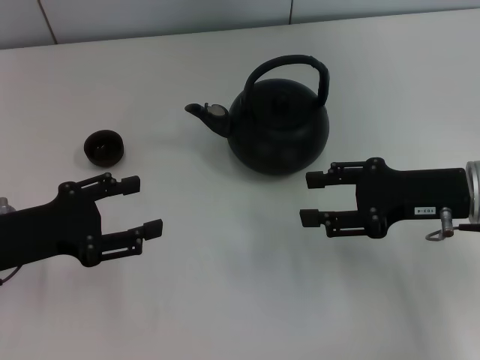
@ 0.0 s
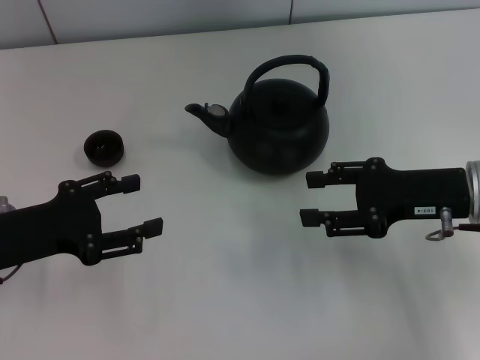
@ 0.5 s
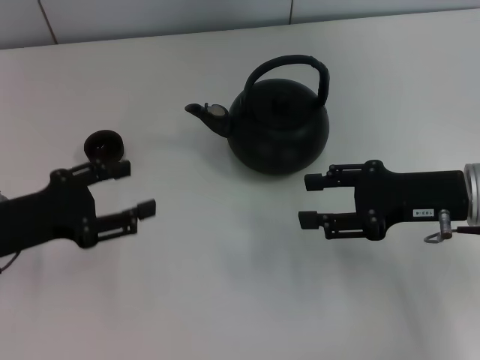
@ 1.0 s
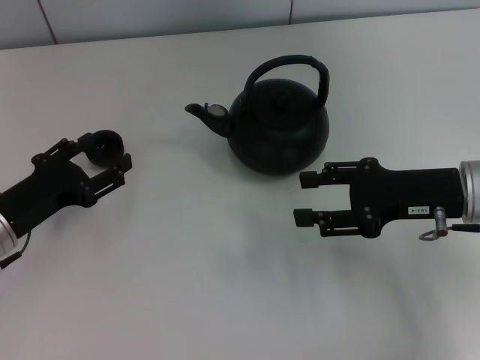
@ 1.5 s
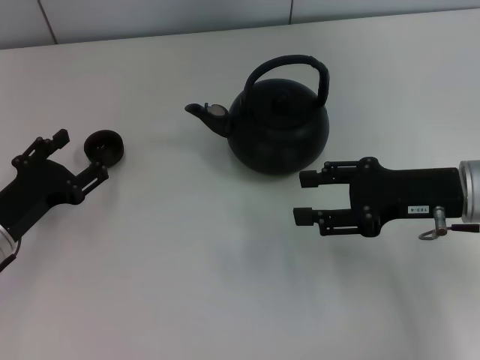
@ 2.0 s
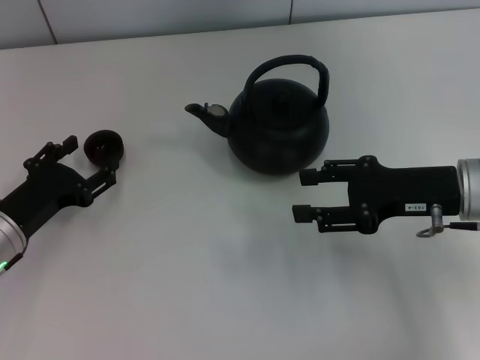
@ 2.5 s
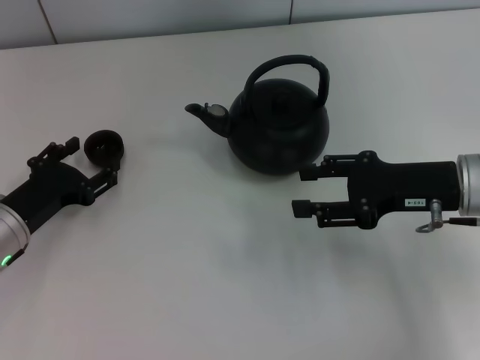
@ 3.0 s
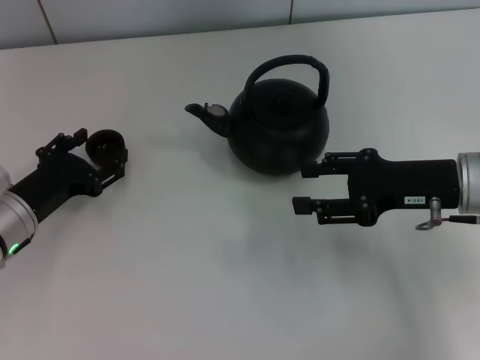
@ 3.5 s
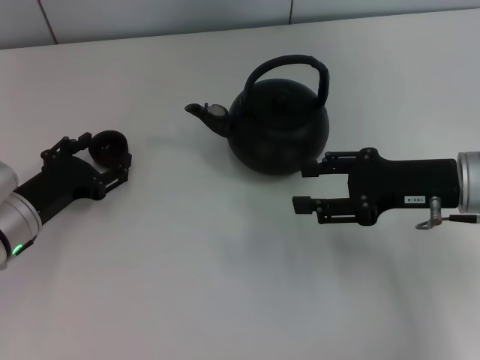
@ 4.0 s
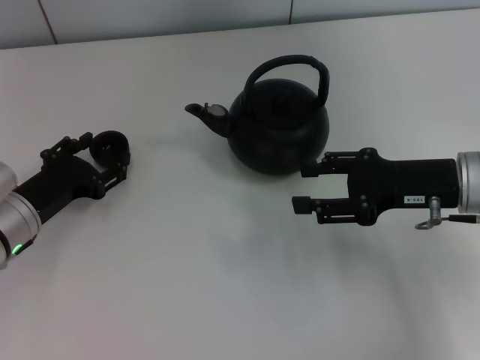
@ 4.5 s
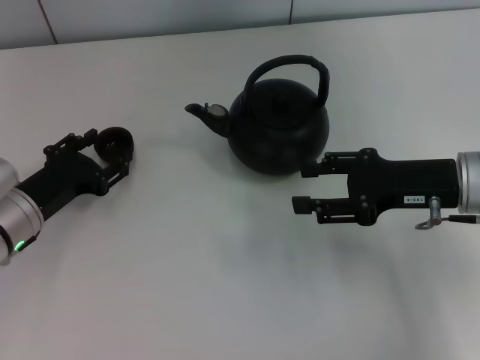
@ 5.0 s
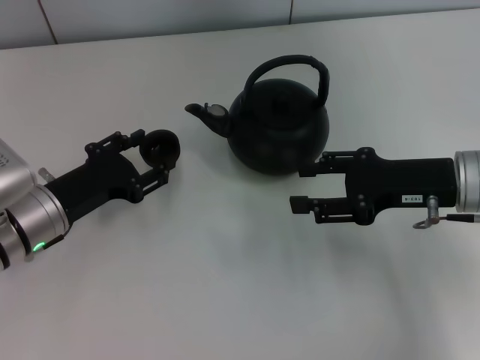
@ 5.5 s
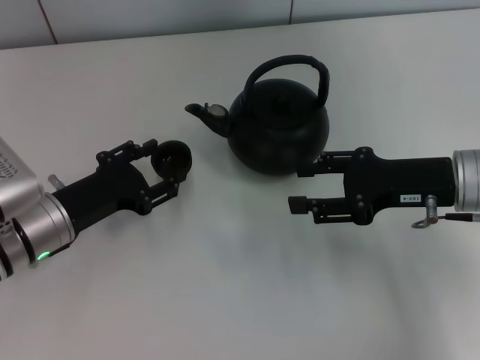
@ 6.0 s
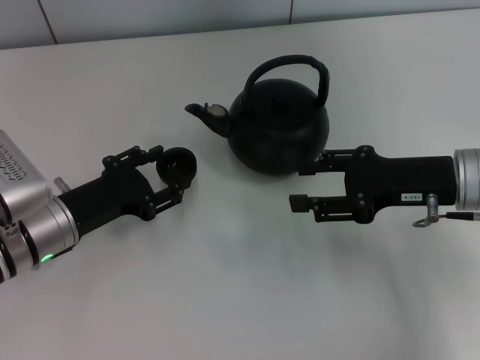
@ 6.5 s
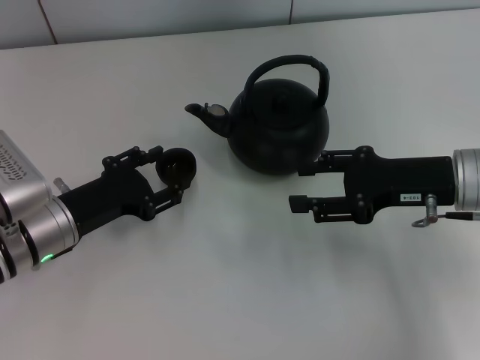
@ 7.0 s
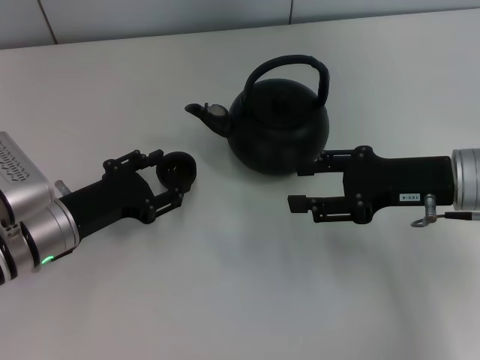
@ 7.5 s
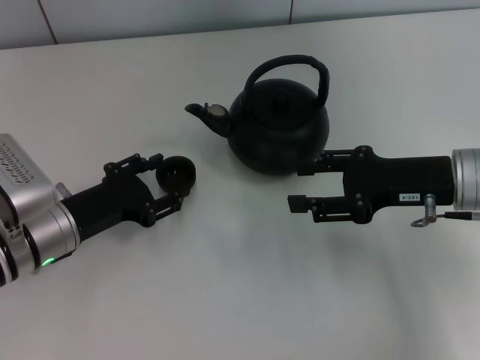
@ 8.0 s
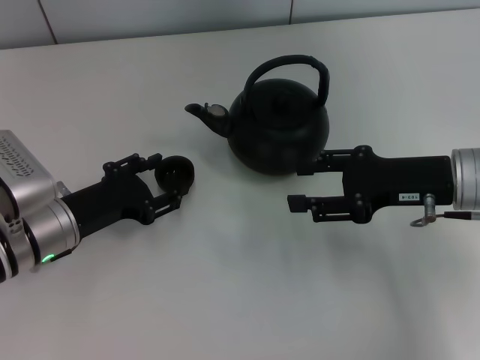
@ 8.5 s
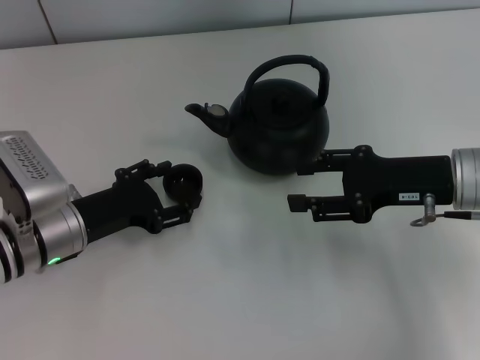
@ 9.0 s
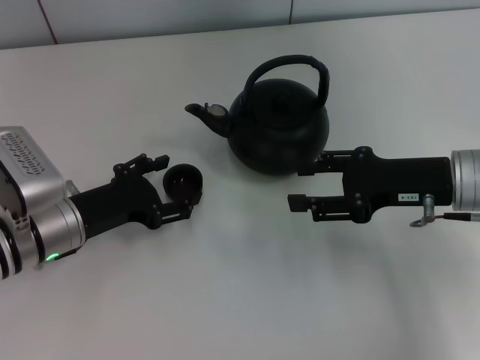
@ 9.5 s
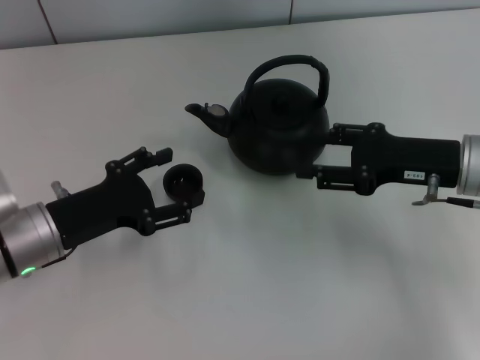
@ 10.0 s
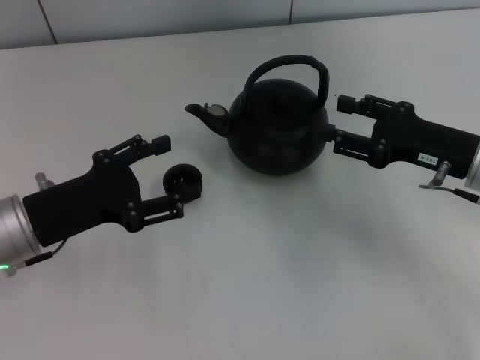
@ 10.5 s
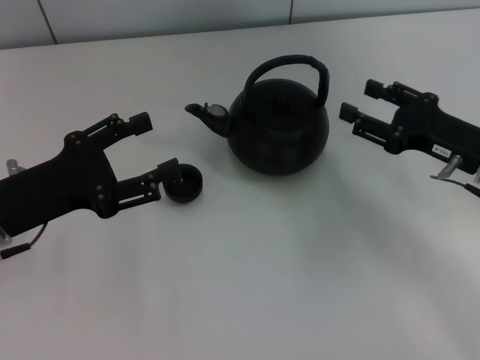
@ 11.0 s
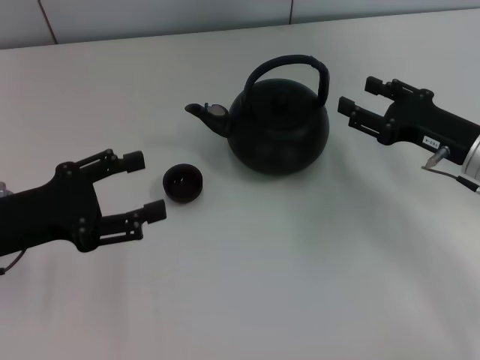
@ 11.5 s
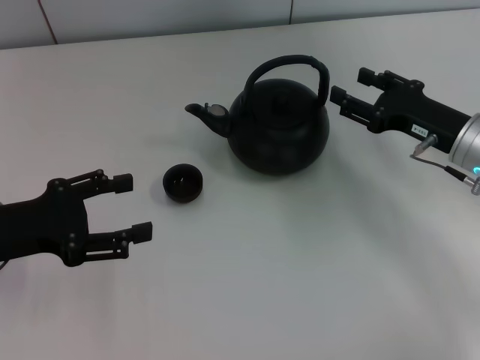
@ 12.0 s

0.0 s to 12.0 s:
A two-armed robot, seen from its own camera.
Task of the whole recording: Grasp the handle of the teapot with one hand and pour tea into the teacup.
Step, 0.0 to 5.5 s: Pick up the teacup with the left gripper.
Step, 6.0 to 10.0 s: Place the teacup in the center of view with the left gripper.
0.0 to 2.0 s: The left gripper heads downward, covering about 5 cm.
2.0 to 6.0 s: The grippers stay close to where they were, moving slightly.
6.0 to 8.0 s: Both grippers stay put.
8.0 to 10.0 s: The left gripper opens its fingers.
10.0 to 12.0 s: The left gripper heads to the left, covering roughly 5 cm.

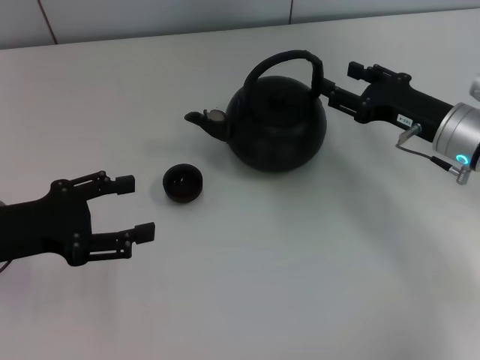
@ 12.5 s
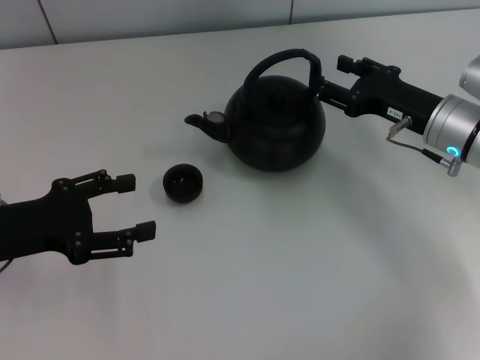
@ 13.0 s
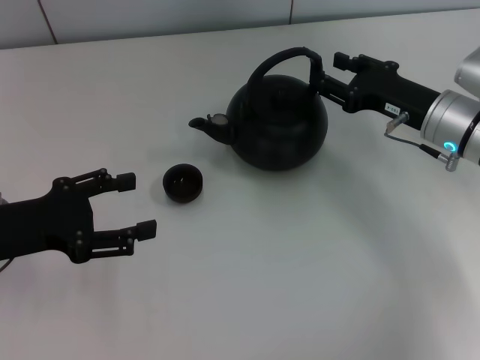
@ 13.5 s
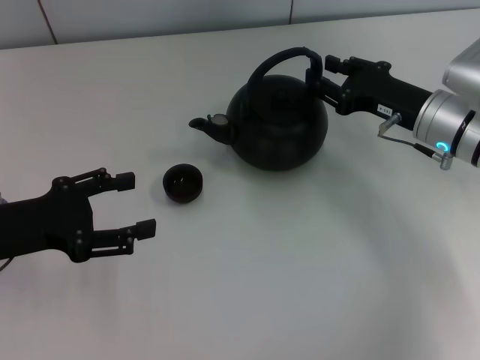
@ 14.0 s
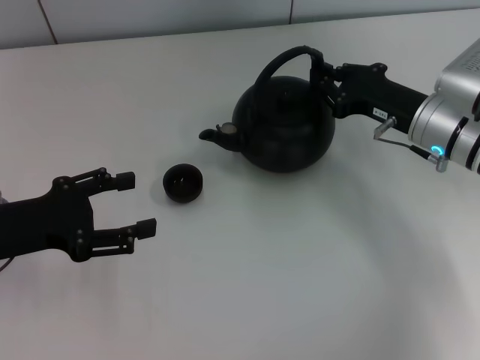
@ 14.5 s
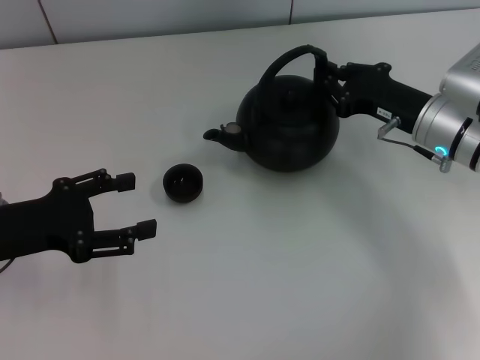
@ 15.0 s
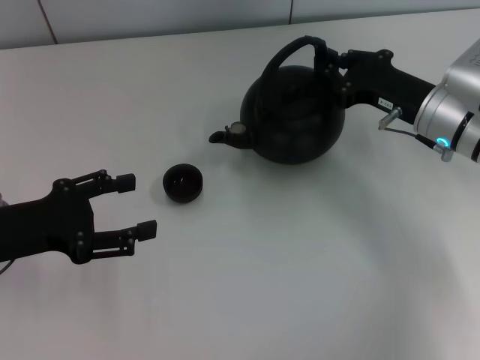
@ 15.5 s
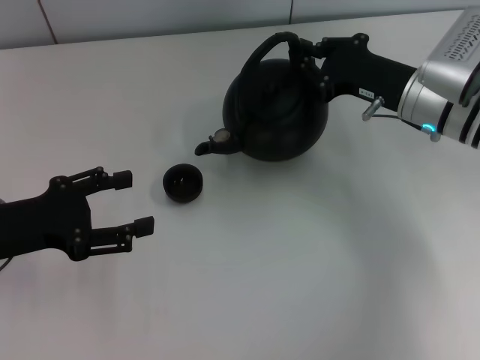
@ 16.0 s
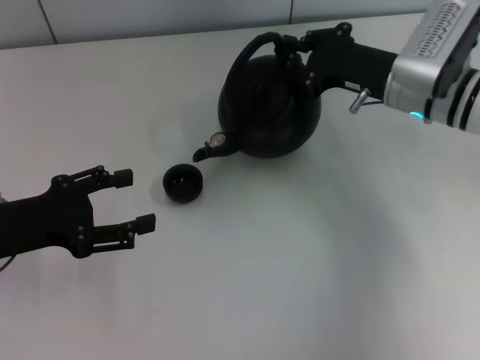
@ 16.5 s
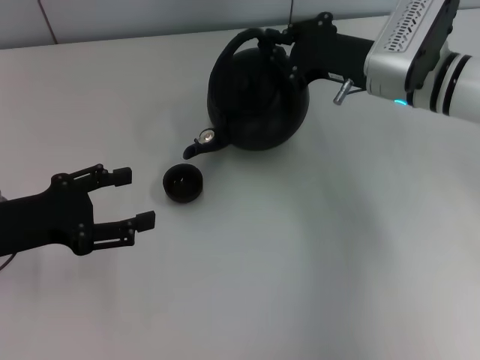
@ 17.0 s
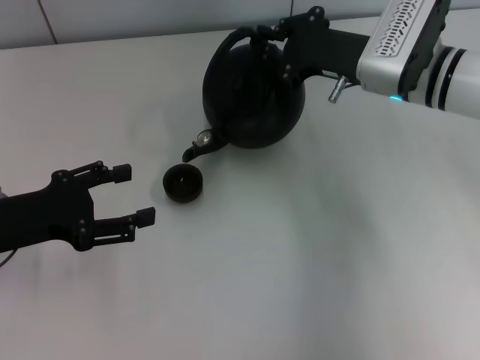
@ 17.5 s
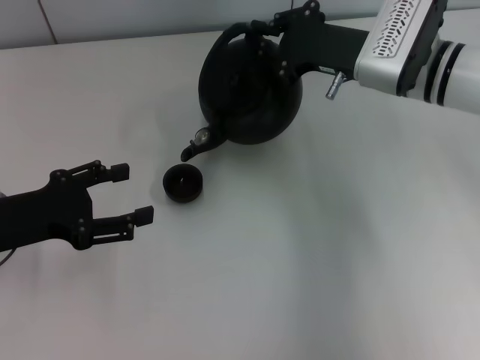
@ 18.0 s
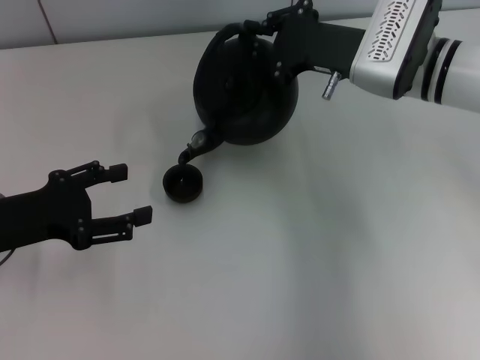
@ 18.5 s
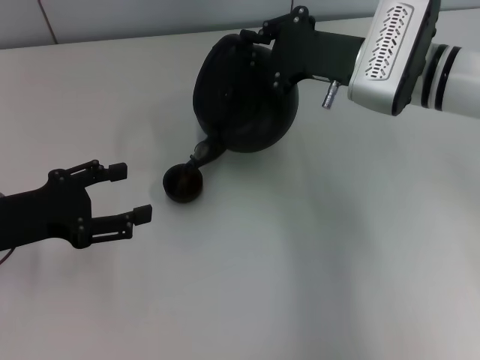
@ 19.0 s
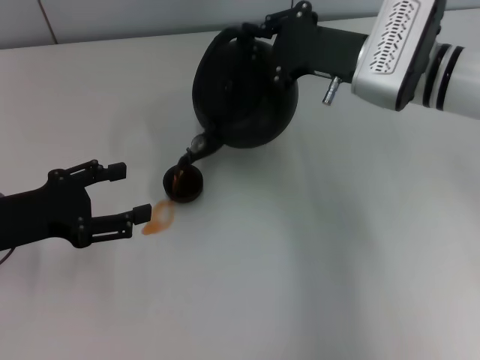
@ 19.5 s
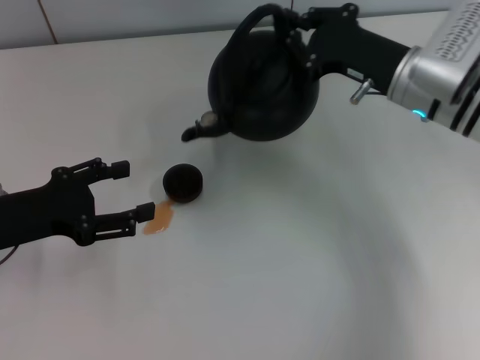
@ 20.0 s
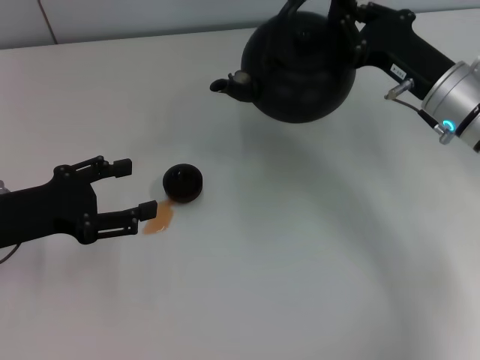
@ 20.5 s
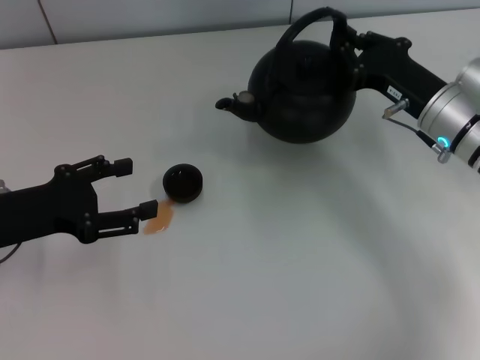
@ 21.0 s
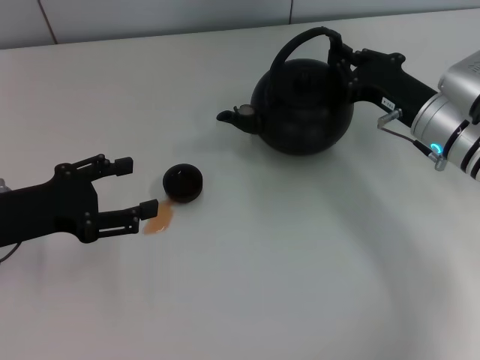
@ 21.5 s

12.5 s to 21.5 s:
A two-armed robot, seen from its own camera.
Task of the whole recording: Grasp the handle of the teapot with one hand and pour tea into the teacup.
Step, 12.5 to 16.0 s: Pick up the teapot with the right gripper.
12.5 to 14.5 s: The right gripper closes up.
14.5 to 17.0 s: The right gripper heads upward, covering some 5 cm.
17.0 to 19.5 s: The grippers stay close to where they were, moving slightly.
19.5 to 21.5 s: The right gripper moves downward and to the right, some 10 cm.

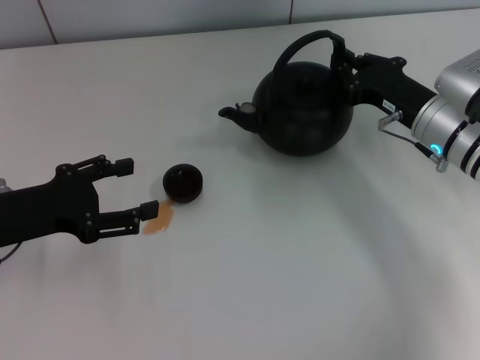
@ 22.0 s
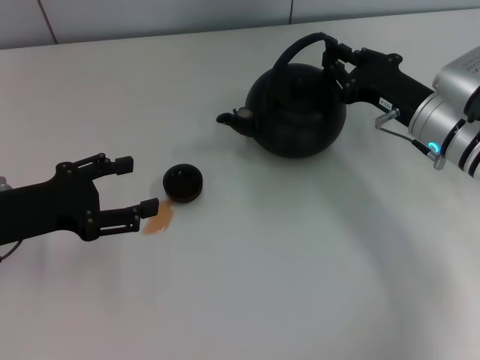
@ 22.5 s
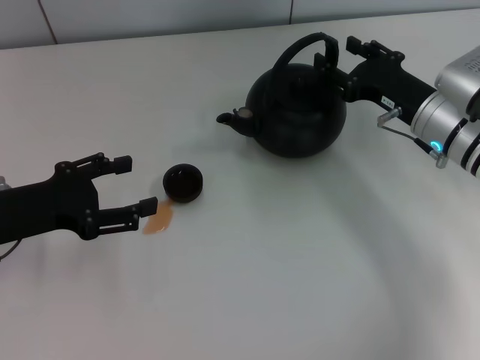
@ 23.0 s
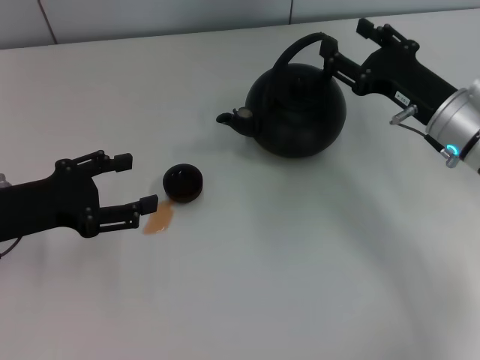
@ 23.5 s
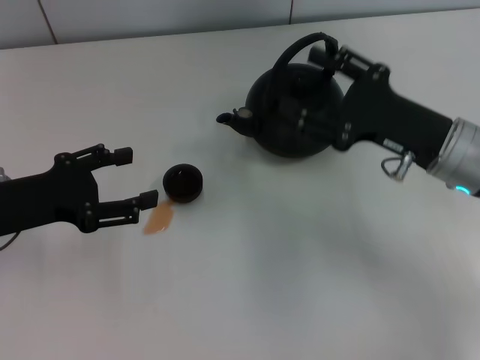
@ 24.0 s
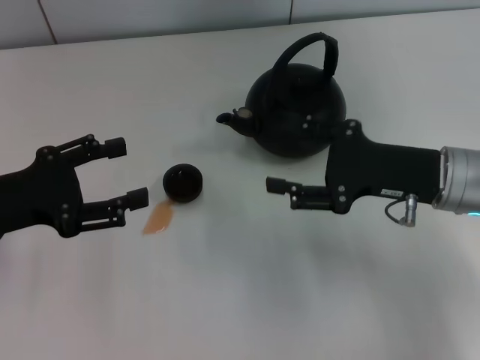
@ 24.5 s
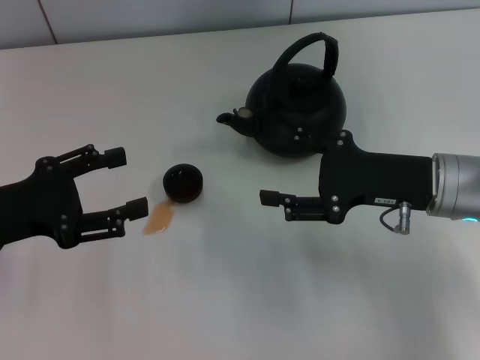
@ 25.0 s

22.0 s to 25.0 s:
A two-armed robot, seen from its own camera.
Task of the whole recording: Grasp the handle of the teapot with one hand and pour tea into the teacup.
22.0 to 23.5 s: The right gripper opens up.
23.5 to 25.0 s: The right gripper ends up about 5 cm from where it was.
